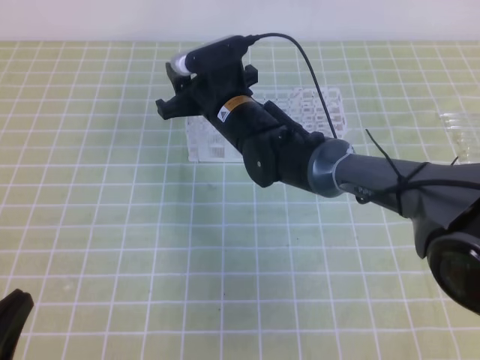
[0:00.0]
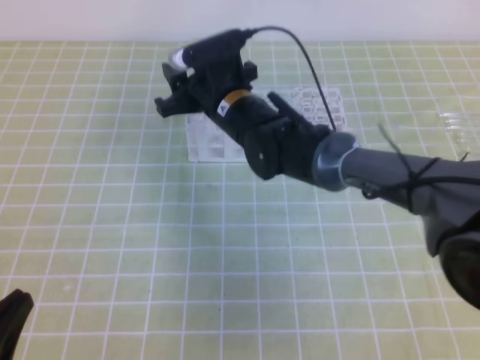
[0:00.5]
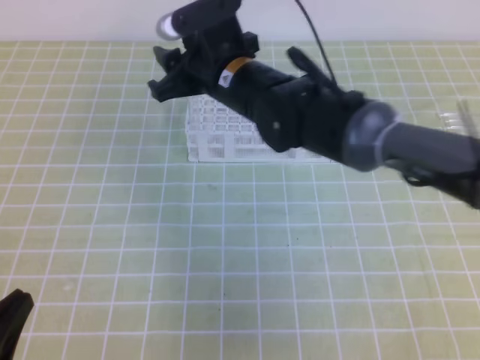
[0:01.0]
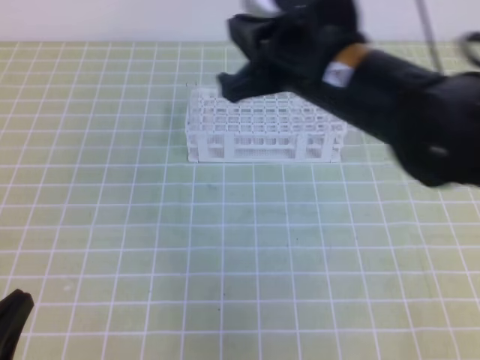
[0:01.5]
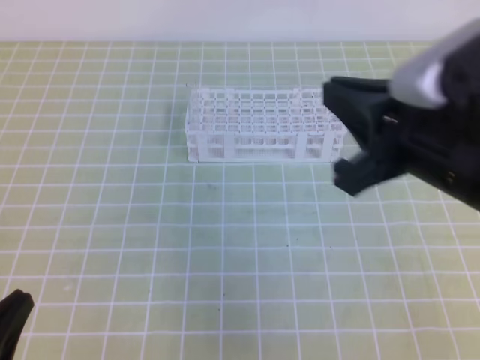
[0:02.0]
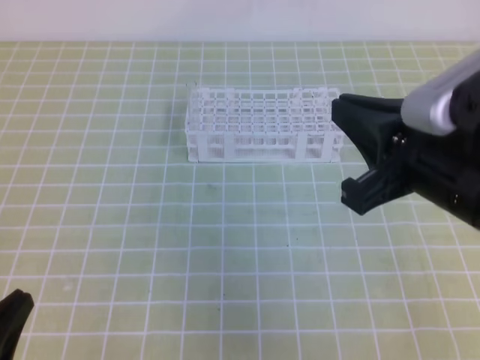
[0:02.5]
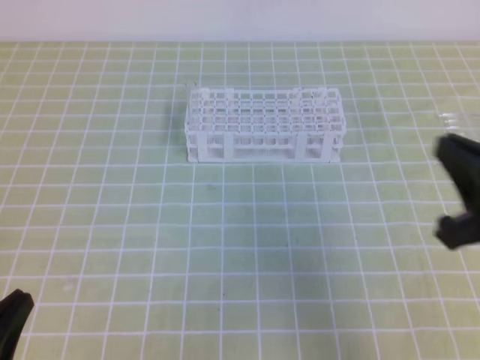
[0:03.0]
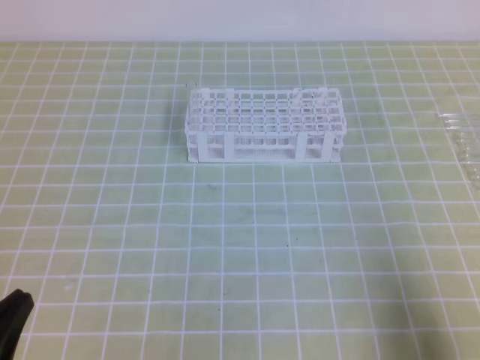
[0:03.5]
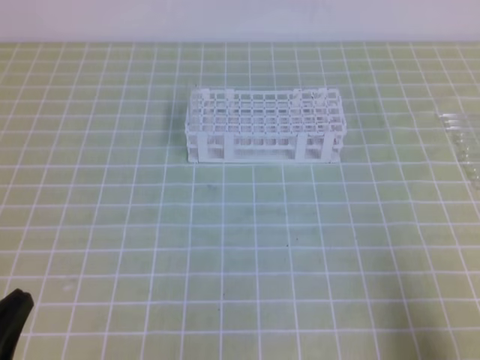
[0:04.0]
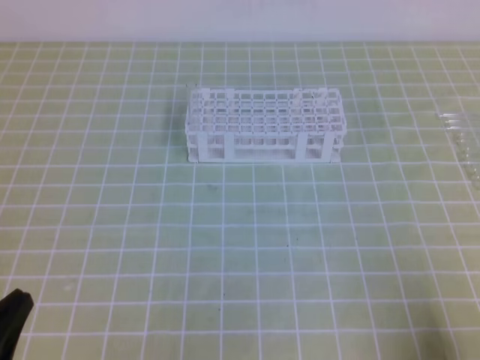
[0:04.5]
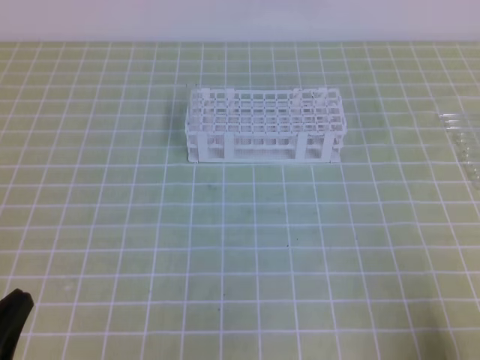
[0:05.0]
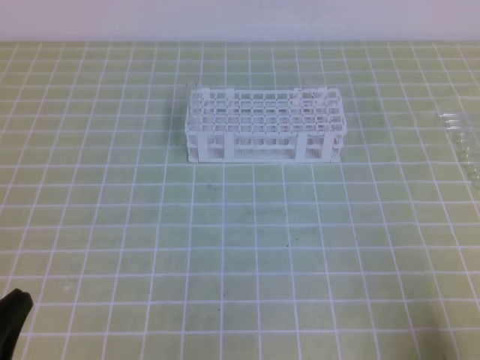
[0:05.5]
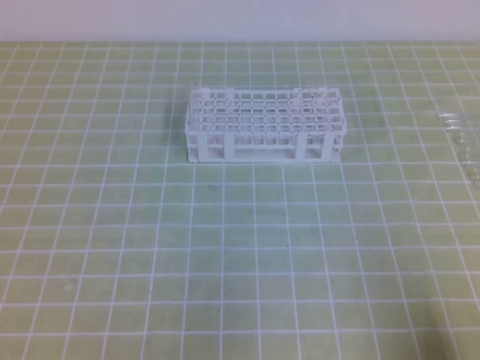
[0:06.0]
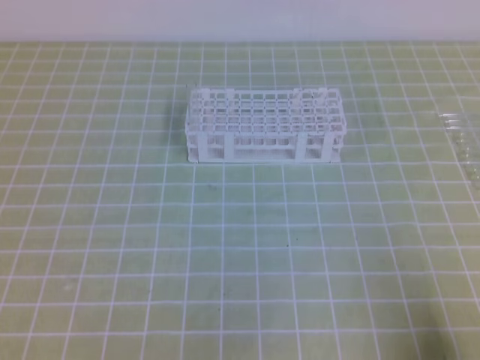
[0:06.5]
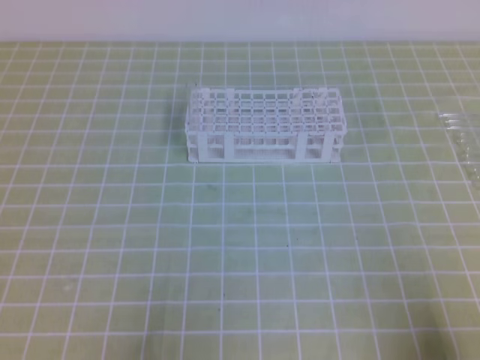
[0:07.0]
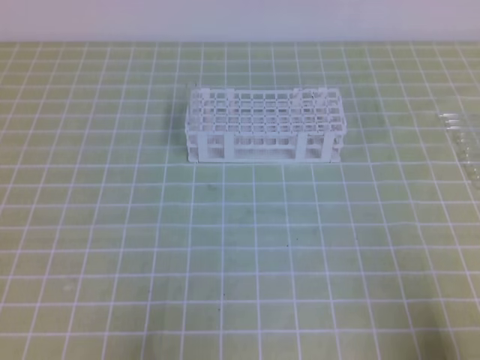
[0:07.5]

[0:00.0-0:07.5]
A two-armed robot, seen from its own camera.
0:00.0 to 0:02.0: The right gripper shifts about 30 cm backward, to the right and upward, and closes.
0:02.0 to 0:04.0: The right gripper travels to the right, downward and backward by roughly 25 cm.
0:05.5 to 0:07.5: There are only small adjustments of the grippers.

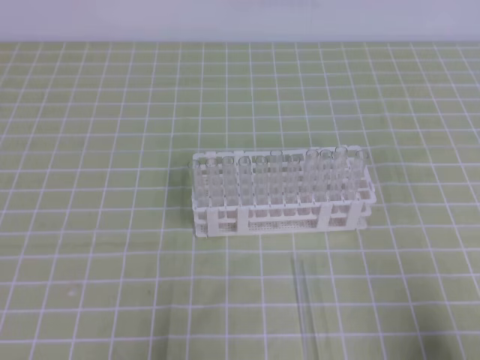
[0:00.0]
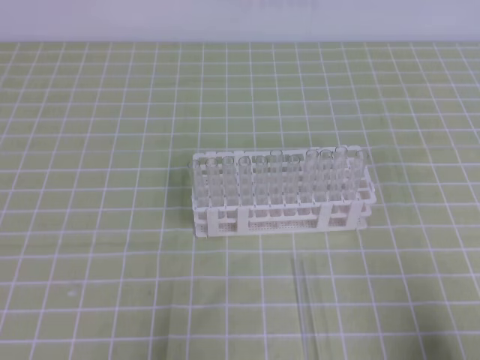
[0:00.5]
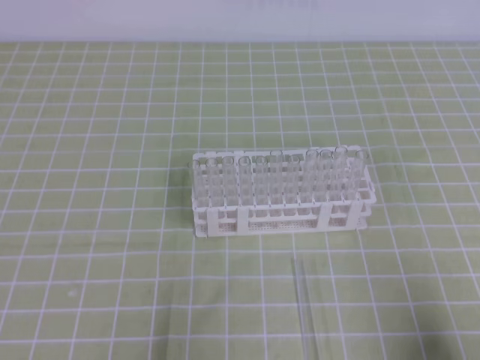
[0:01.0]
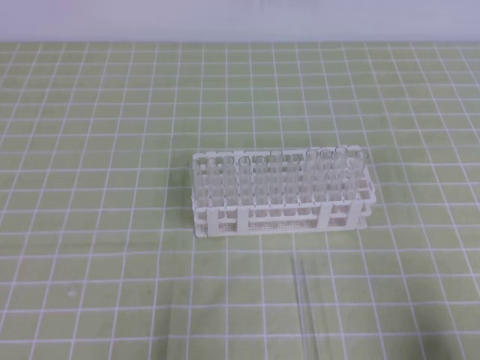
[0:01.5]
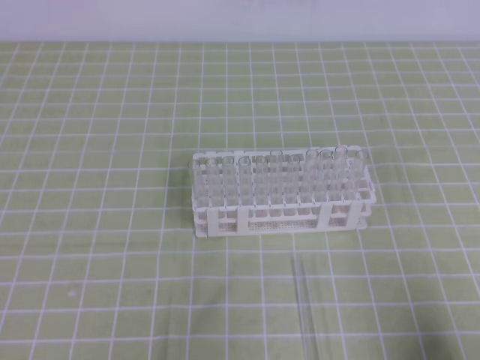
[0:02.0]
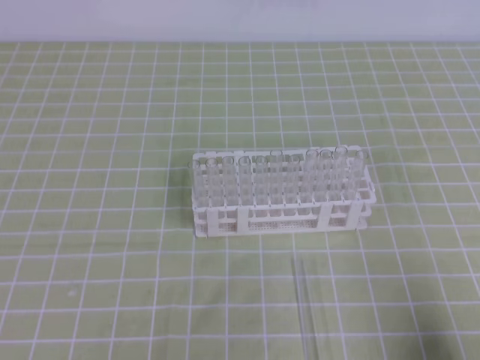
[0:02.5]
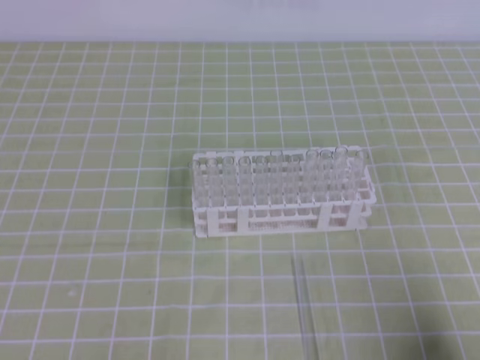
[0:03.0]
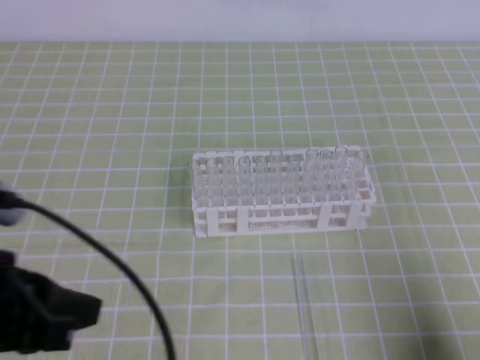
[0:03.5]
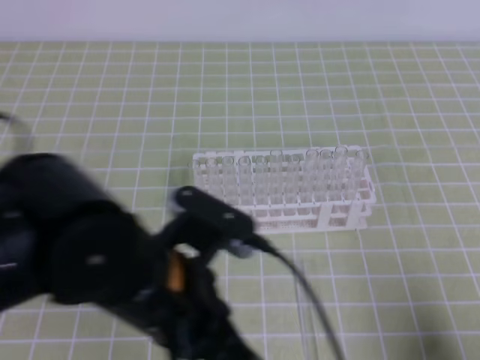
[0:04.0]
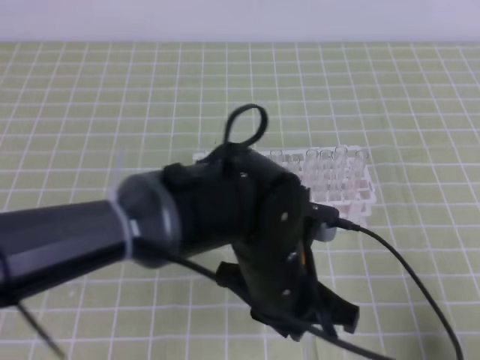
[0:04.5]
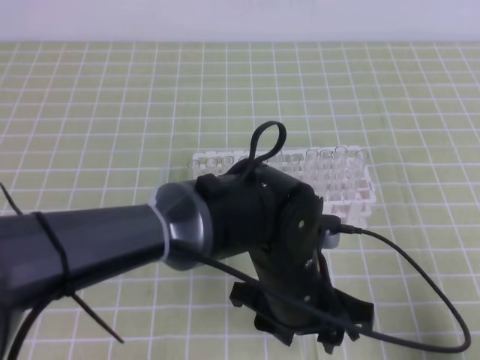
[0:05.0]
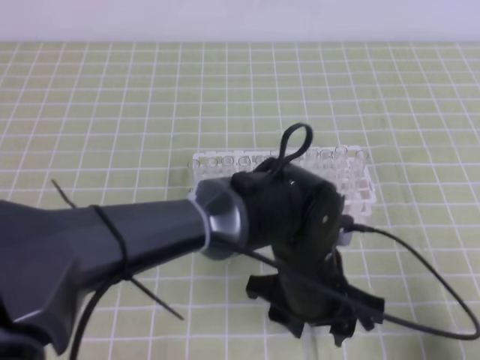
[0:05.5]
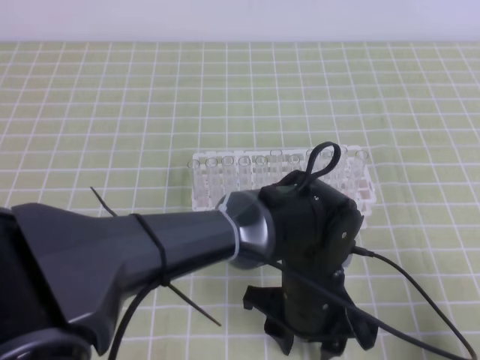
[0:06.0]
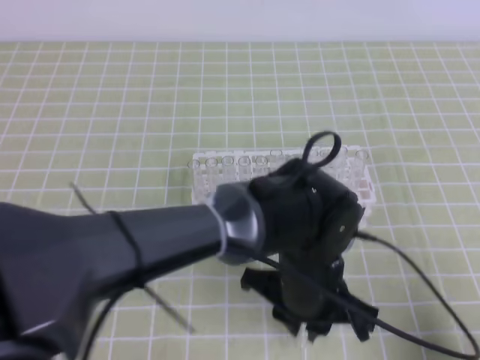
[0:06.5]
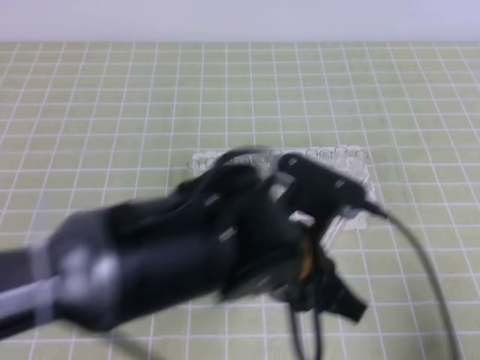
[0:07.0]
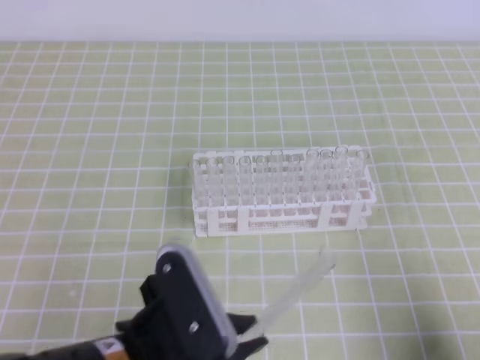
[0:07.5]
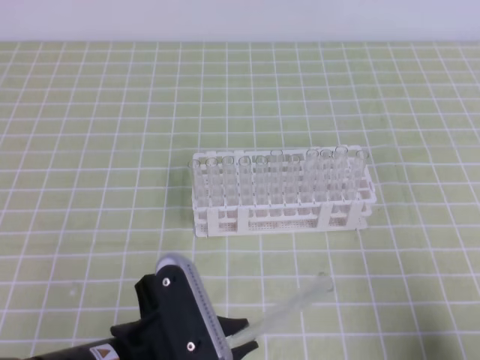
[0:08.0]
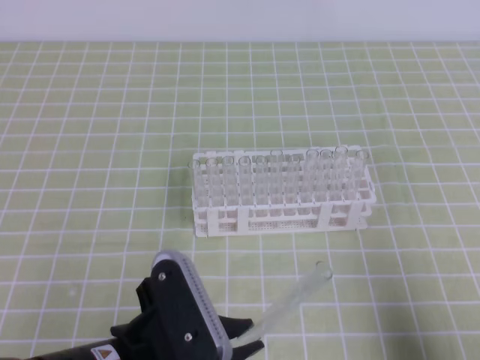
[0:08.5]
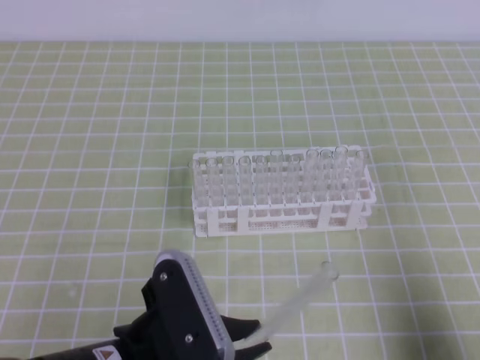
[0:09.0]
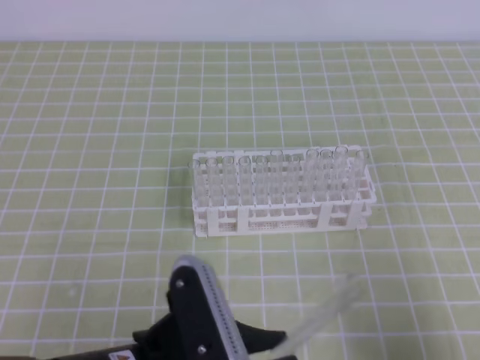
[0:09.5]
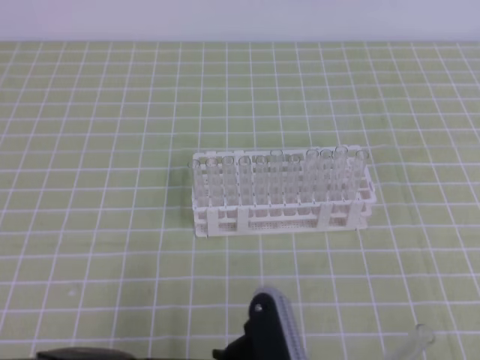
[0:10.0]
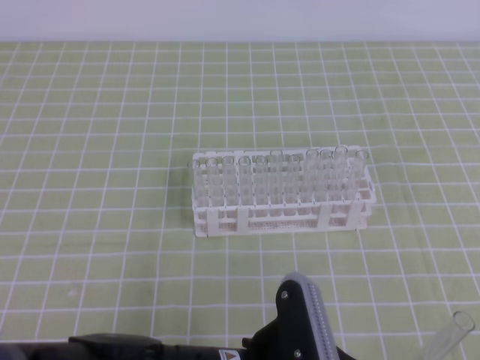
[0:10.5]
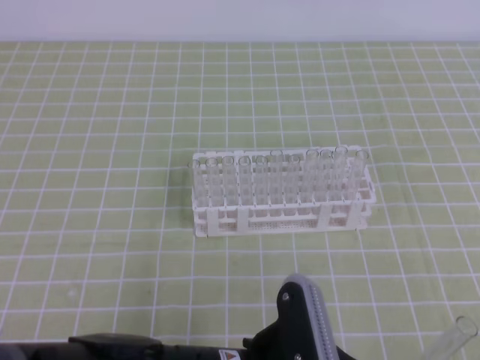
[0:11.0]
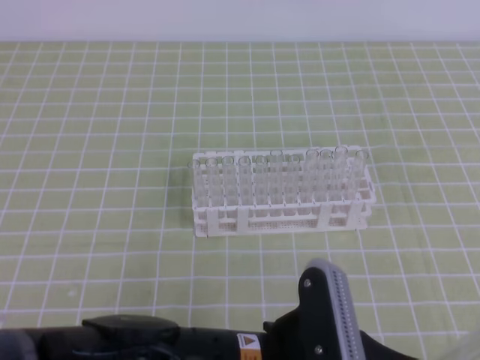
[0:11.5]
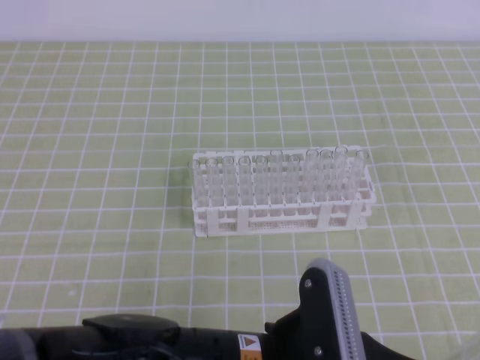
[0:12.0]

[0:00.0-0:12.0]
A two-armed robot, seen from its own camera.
0:02.0 to 0:04.0: The left gripper shifts roughly 20 cm to the right, forward and upward.
0:04.0 to 0:06.0: The left gripper travels to the right and downward by some 20 cm, and opens.
0:06.0 to 0:08.0: The left gripper heads to the left and backward, covering approximately 20 cm, and closes up.
0:08.0 to 0:10.0: The left gripper goes some 5 cm to the right. Meanwhile the right gripper heads upward, covering about 10 cm, and opens its fingers.
0:10.0 to 0:12.0: The grippers make only small movements.

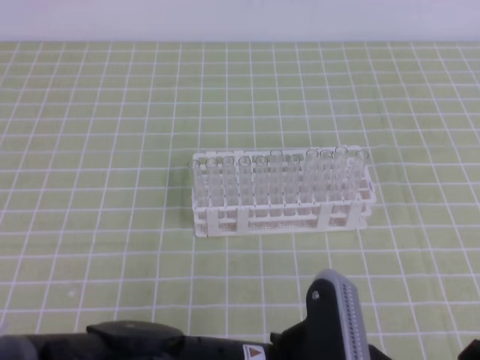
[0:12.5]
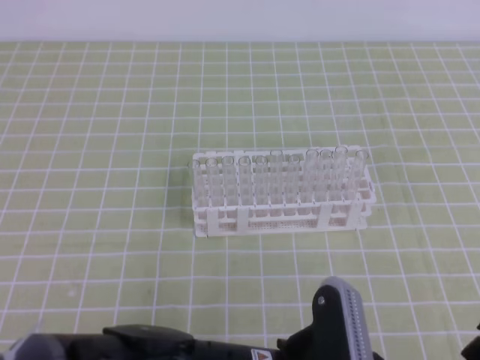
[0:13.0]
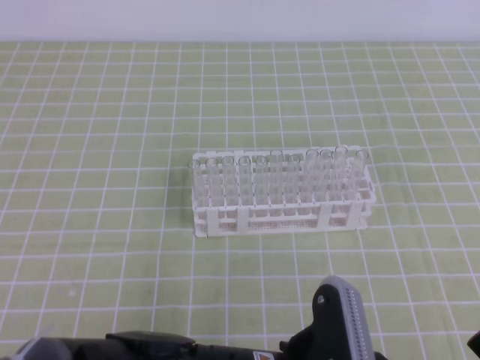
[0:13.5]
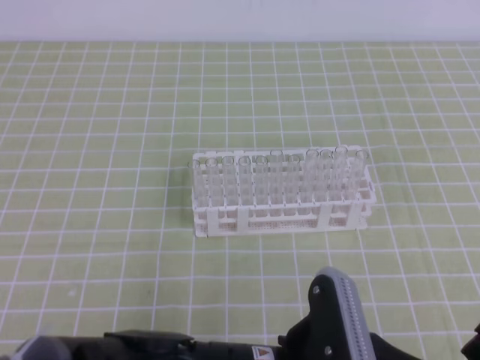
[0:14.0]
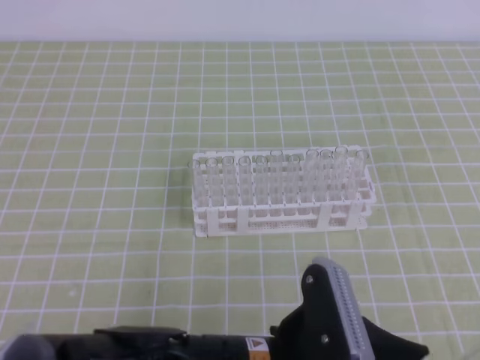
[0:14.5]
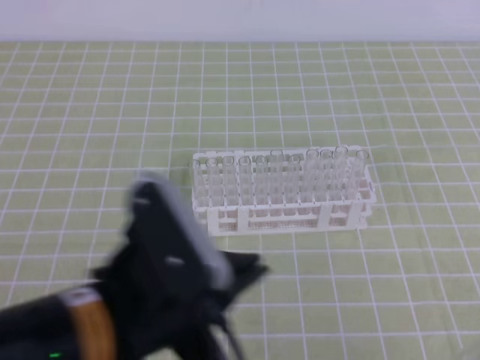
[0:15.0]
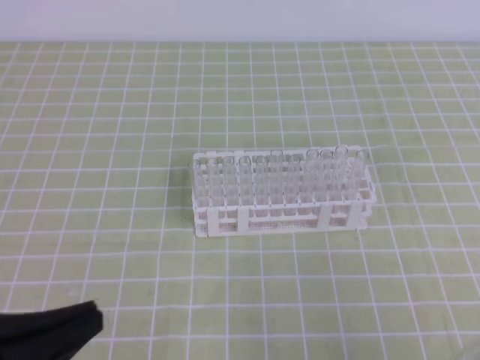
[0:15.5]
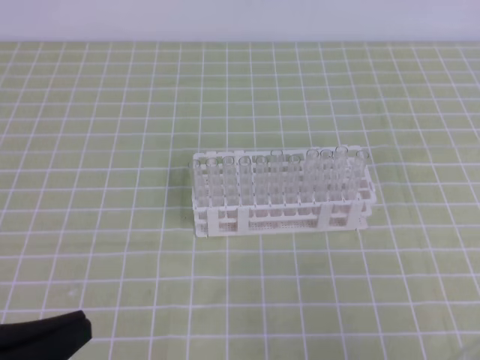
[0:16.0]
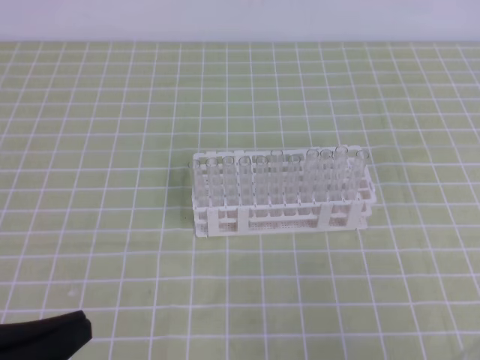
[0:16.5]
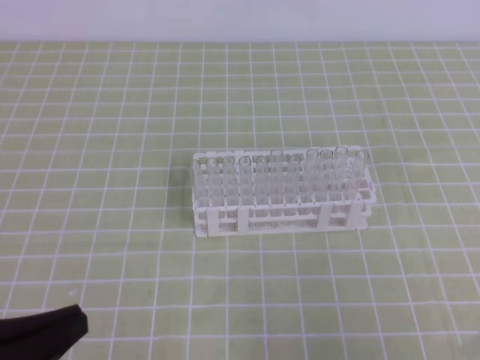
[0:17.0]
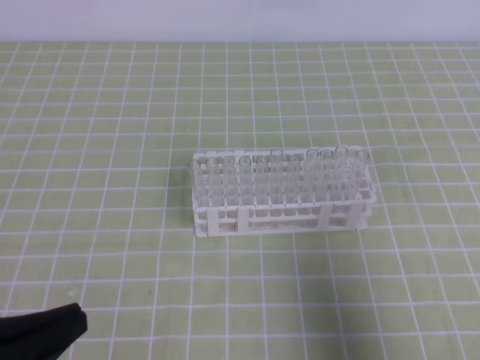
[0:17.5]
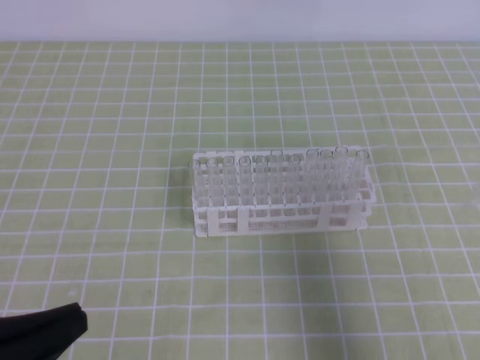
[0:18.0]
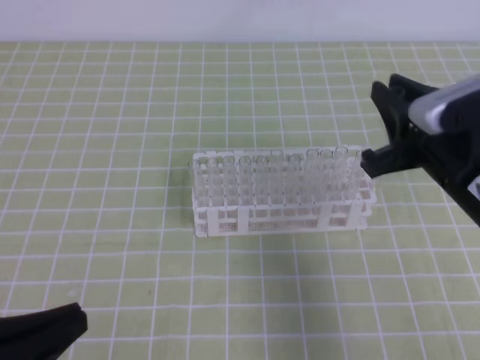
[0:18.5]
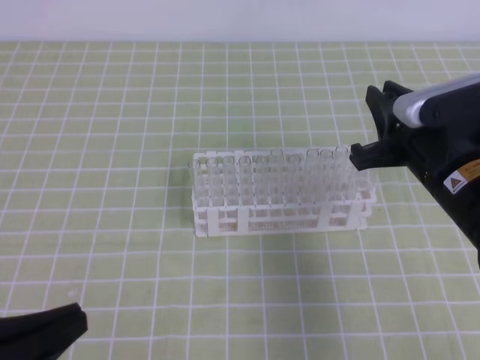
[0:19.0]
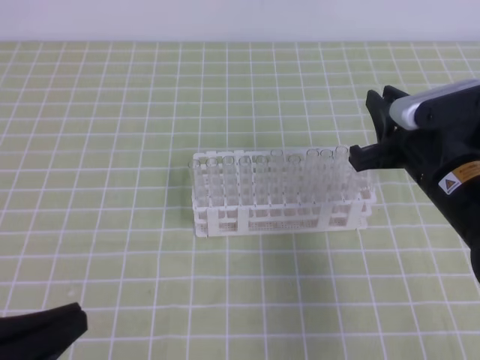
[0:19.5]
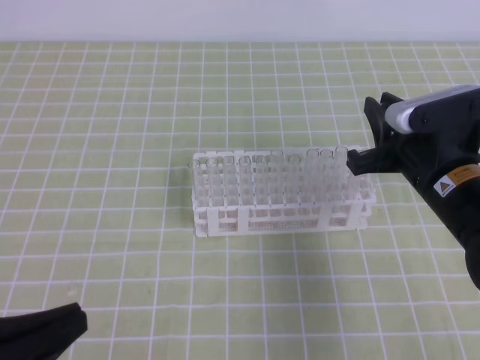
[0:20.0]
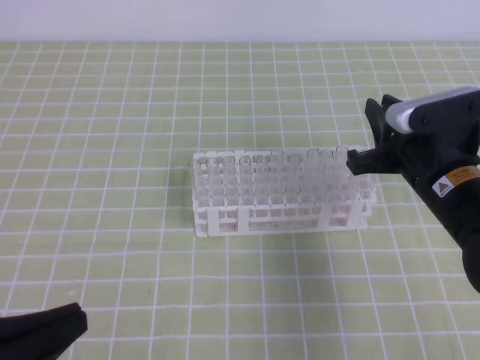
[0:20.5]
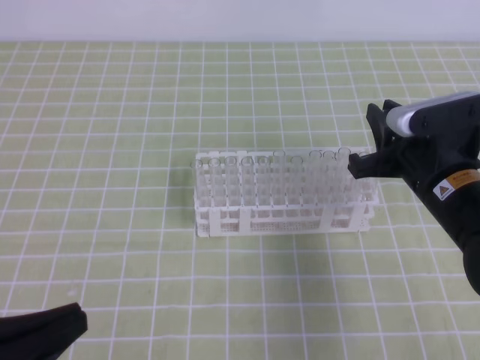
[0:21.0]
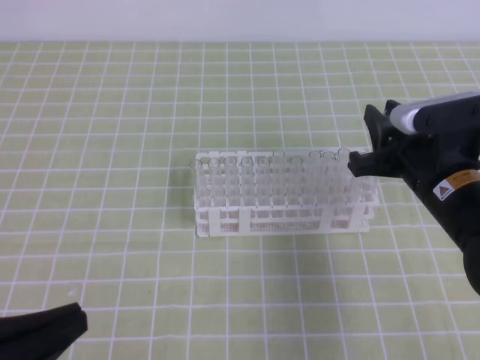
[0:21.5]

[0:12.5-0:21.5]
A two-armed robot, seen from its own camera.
0:12.5 to 0:14.5: The left gripper opens its fingers; the right gripper closes.
0:14.5 to 0:17.0: The left gripper moves to the left, roughly 25 cm, and closes up.
0:17.0 to 0:19.5: The right gripper moves forward, approximately 25 cm.
0:19.5 to 0:21.5: The grippers move only a little.
